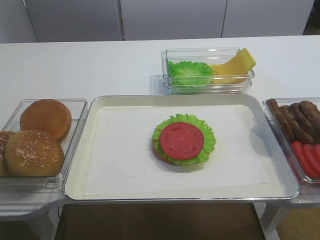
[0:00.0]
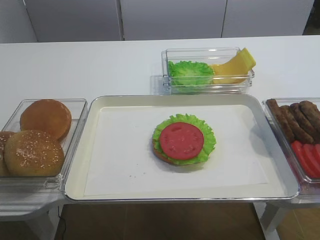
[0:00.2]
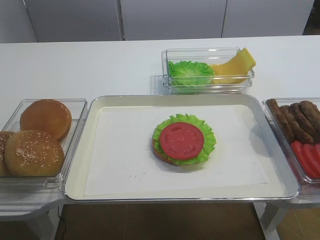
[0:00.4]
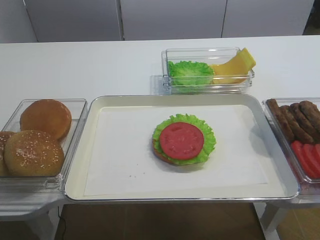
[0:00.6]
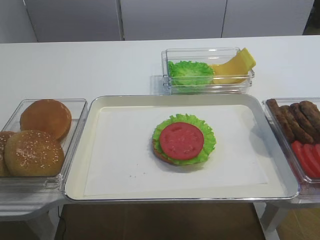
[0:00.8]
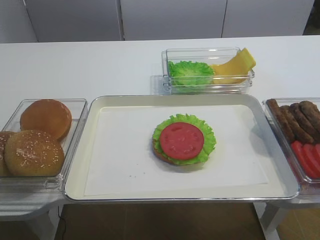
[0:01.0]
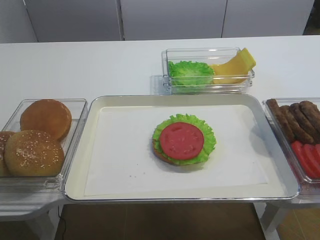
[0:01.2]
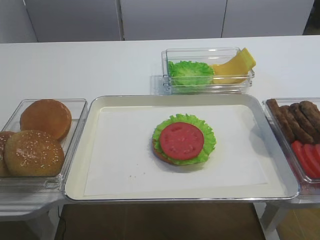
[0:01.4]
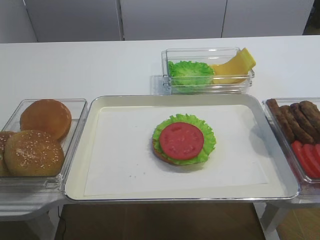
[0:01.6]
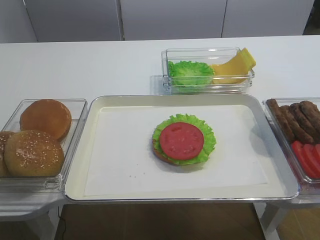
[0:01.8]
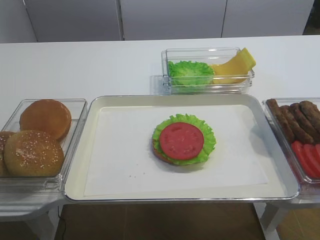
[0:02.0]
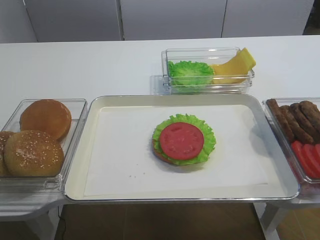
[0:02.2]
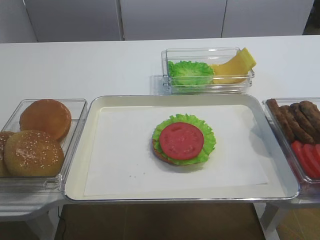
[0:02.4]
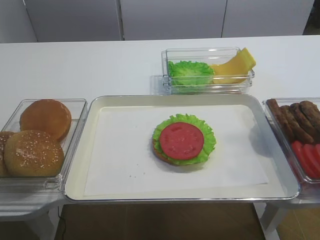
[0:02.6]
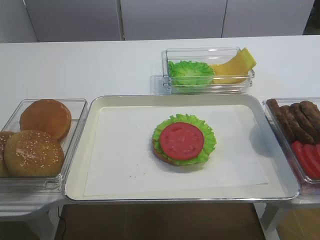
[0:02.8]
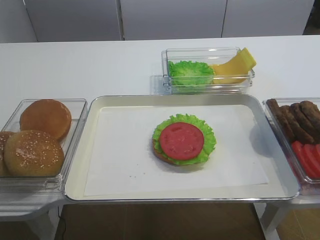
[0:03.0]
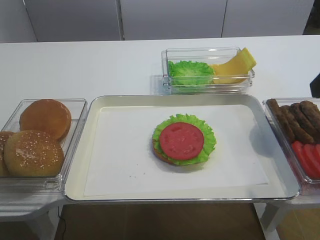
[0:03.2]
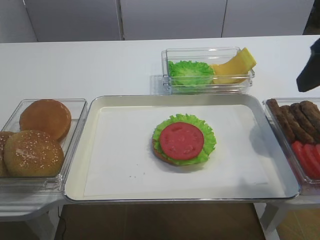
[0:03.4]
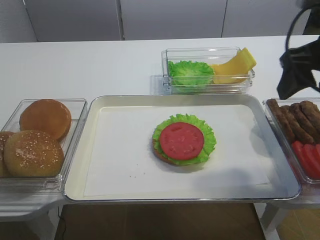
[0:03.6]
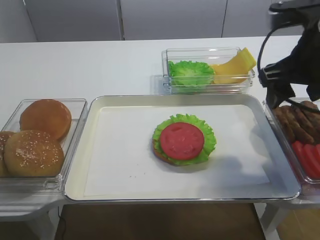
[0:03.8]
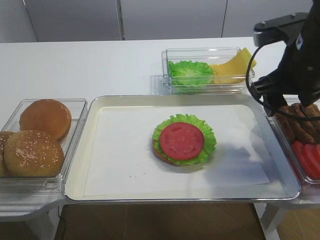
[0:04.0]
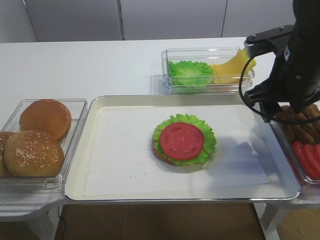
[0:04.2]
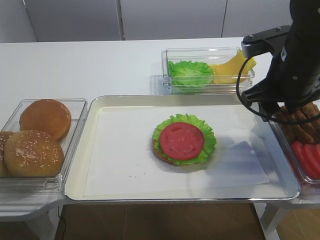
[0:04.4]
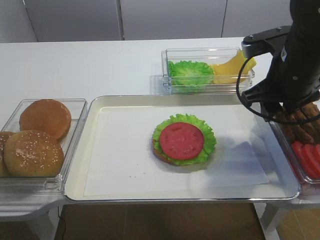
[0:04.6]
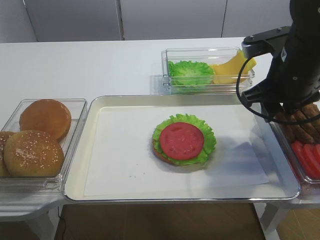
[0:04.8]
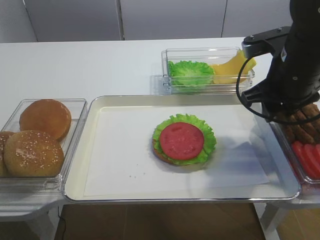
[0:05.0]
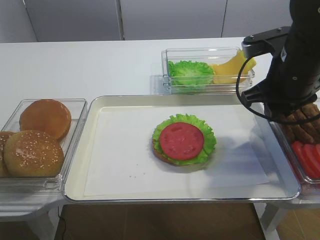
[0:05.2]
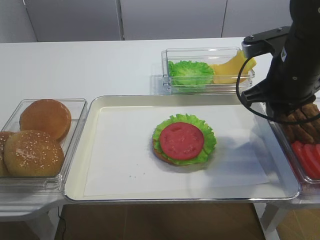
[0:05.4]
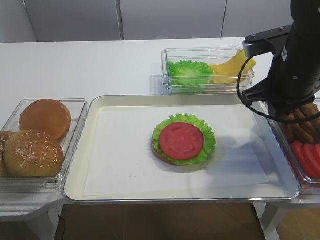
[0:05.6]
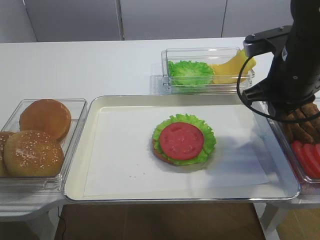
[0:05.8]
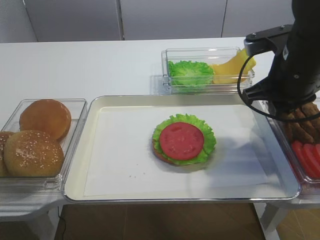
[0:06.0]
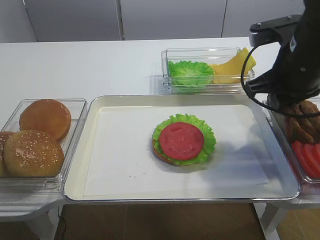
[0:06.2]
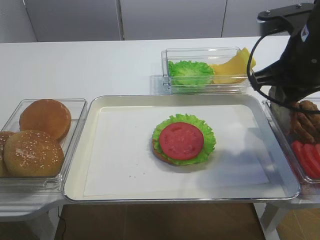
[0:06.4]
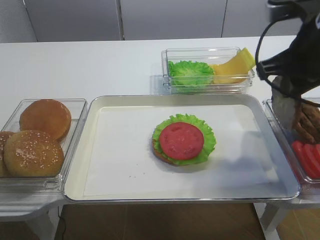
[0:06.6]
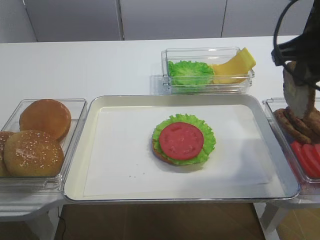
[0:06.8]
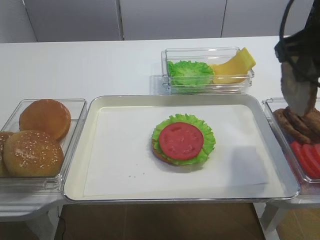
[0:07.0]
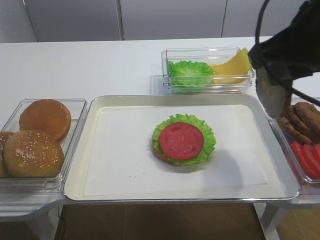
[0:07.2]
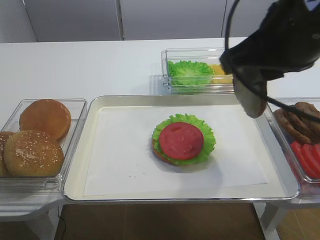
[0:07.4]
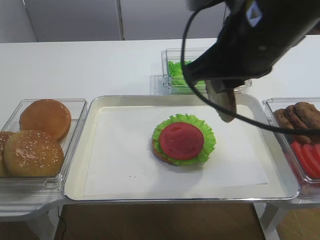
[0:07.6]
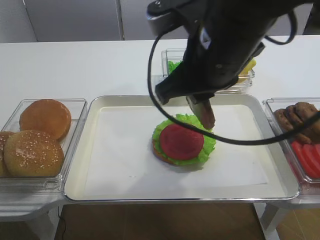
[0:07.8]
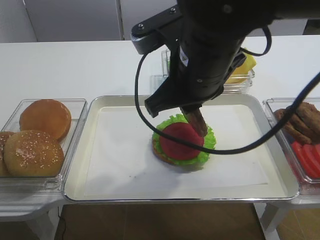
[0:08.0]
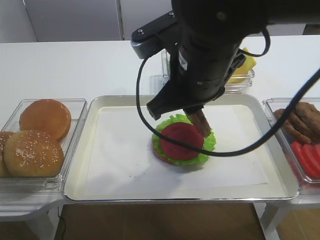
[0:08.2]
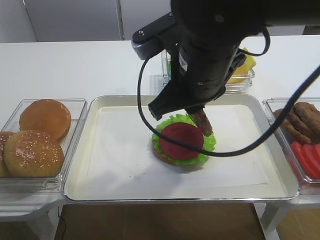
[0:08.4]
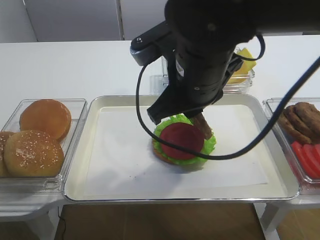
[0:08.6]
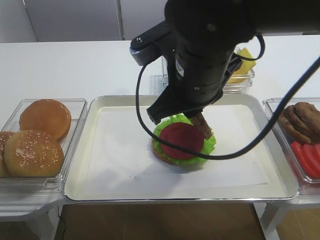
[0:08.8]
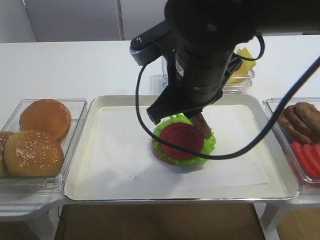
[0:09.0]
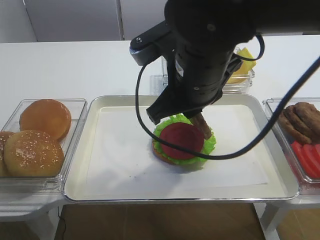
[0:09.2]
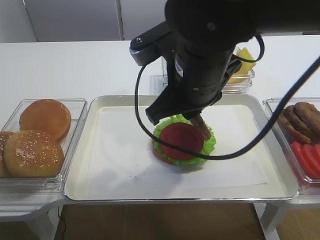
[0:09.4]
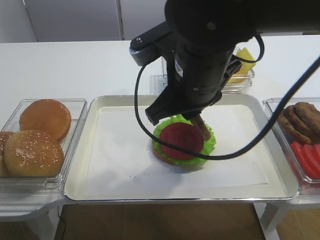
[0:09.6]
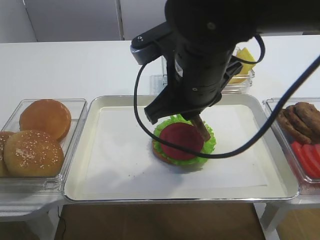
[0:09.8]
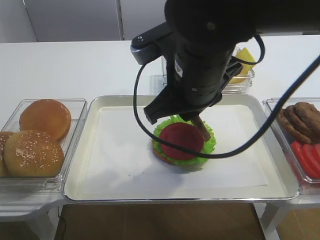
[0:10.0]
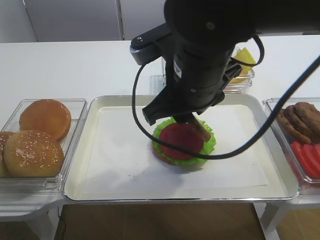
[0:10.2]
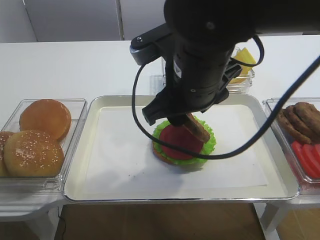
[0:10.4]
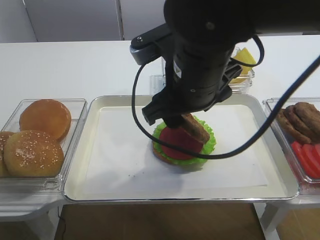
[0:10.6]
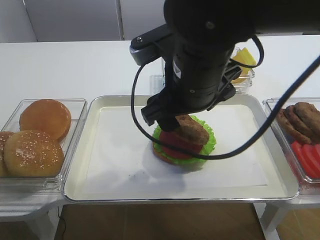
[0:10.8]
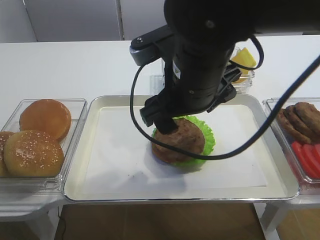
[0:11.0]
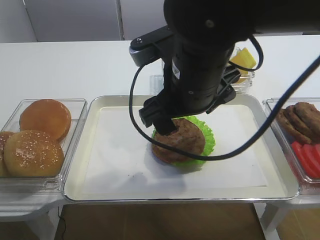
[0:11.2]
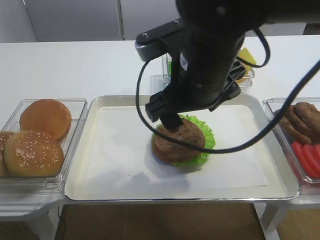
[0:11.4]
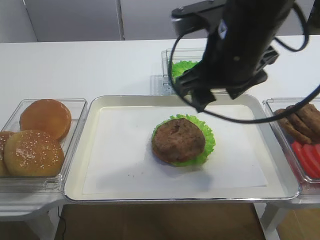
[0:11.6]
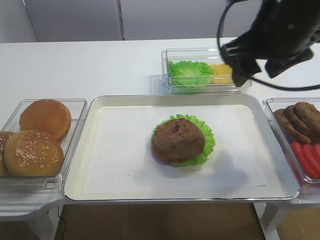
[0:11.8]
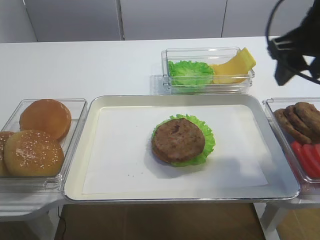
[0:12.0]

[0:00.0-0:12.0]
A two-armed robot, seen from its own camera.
Step, 0.0 to 7.2 s: Pick up the cutlet with the right gripper.
Step, 7.4 to 11.6 s: Place the cutlet on the tomato slice with the right gripper.
1.6 to 3.0 s: The right gripper is displaced forward by roughly 15 cm.
3.0 to 4.4 s: The right gripper shifts some 15 cm forward, downward and to the left.
4.4 to 6.0 s: The right gripper closes.
6.0 to 7.6 s: The right gripper is displaced to the left, upward and backward by approximately 15 cm.
7.6 to 9.0 s: The right gripper moves to the left and downward, approximately 10 cm.
9.0 to 10.4 s: The right gripper opens.
10.4 to 12.0 s: The right gripper shifts some 15 cm to the right, and opens, then closes once more.

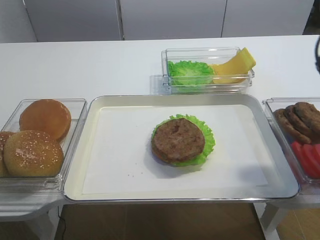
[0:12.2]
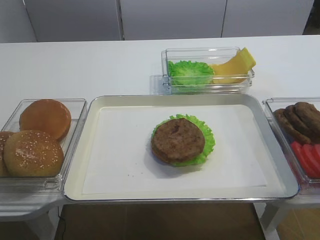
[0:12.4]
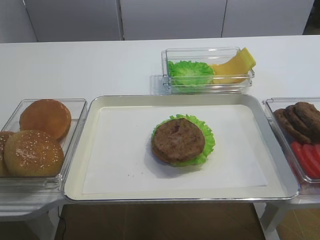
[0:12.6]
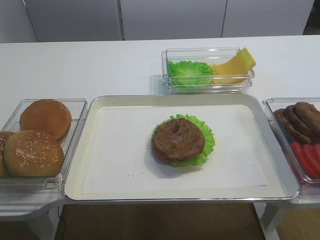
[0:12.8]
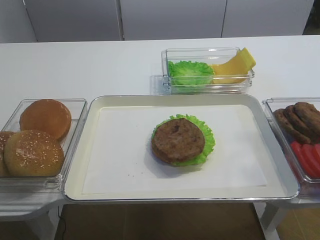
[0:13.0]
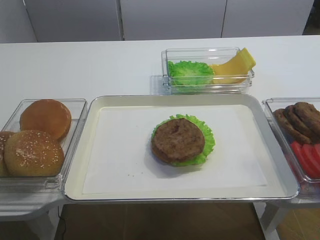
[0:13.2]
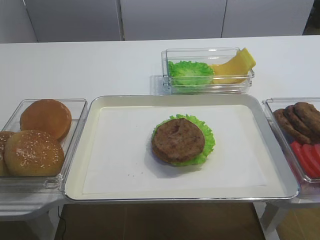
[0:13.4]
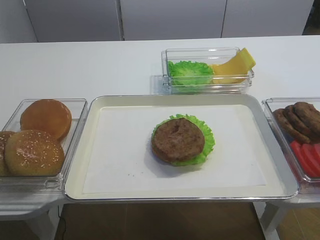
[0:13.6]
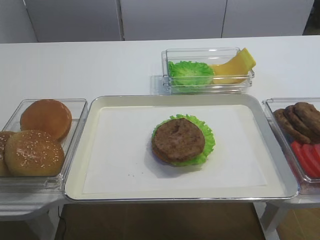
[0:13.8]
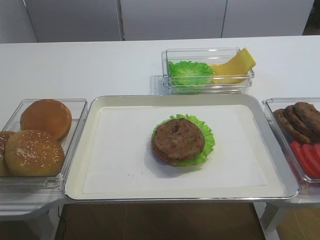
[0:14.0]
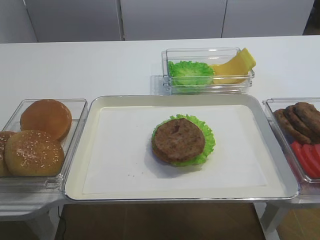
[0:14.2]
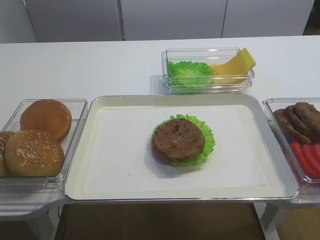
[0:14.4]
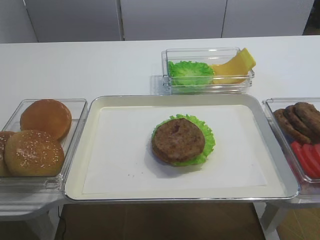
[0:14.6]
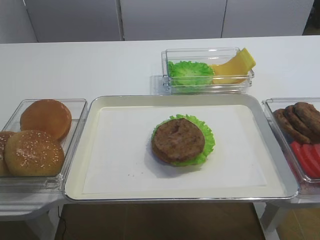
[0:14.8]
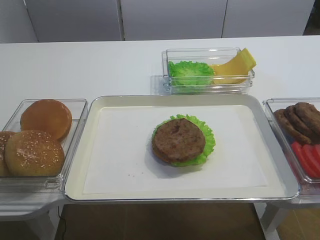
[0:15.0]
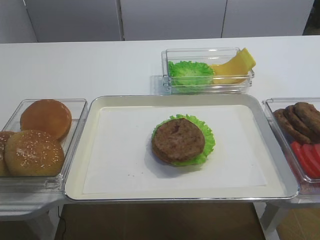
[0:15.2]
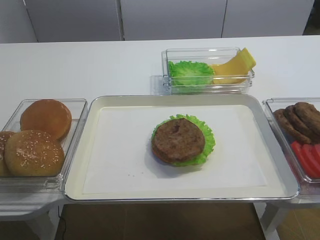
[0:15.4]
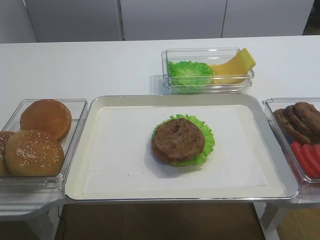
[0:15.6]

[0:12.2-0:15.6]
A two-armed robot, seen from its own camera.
12.2 to 13.8 s: The right gripper shifts some 30 cm backward.

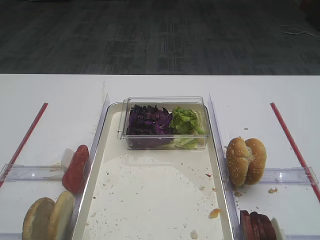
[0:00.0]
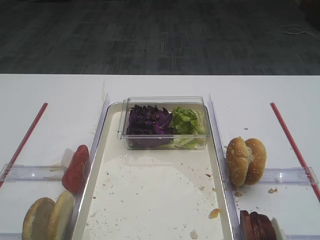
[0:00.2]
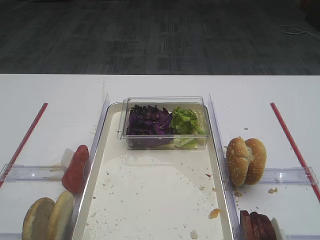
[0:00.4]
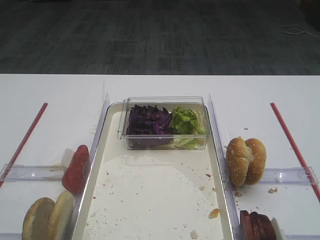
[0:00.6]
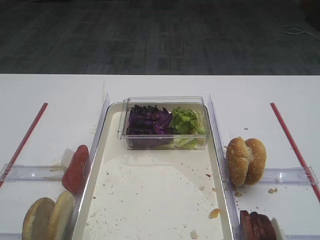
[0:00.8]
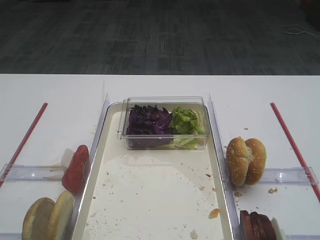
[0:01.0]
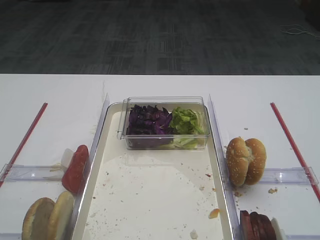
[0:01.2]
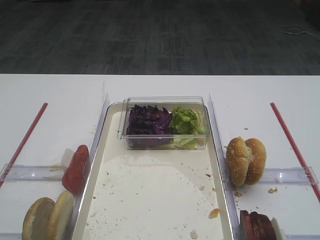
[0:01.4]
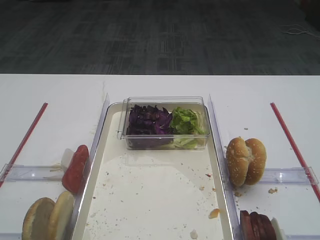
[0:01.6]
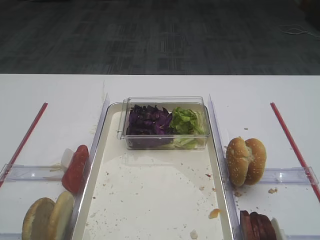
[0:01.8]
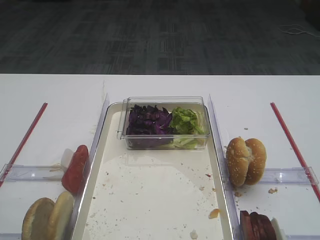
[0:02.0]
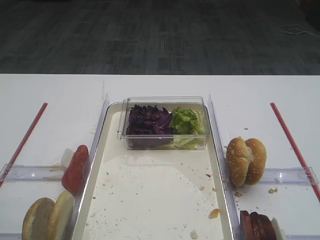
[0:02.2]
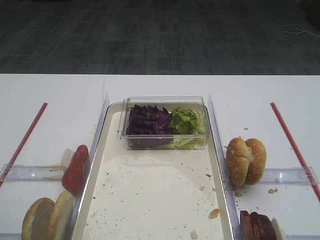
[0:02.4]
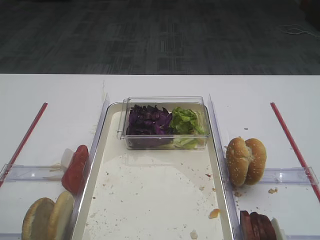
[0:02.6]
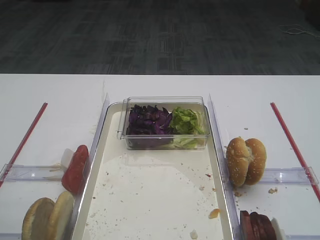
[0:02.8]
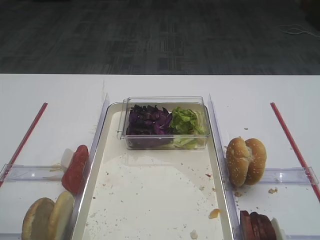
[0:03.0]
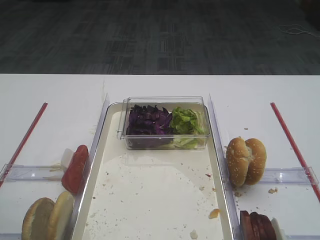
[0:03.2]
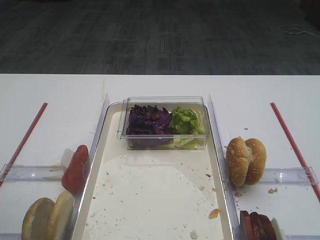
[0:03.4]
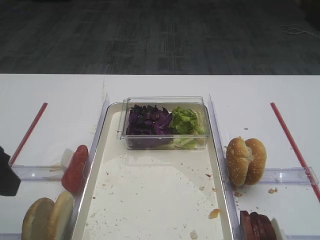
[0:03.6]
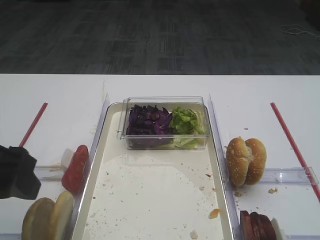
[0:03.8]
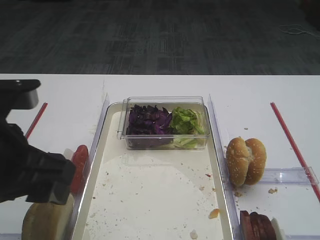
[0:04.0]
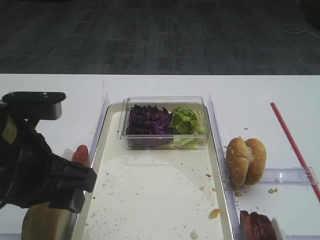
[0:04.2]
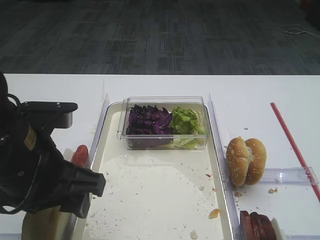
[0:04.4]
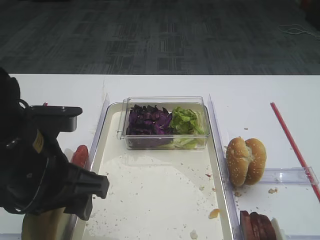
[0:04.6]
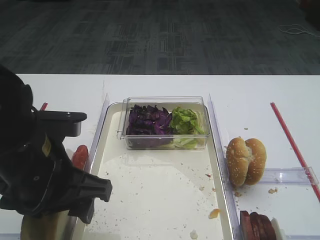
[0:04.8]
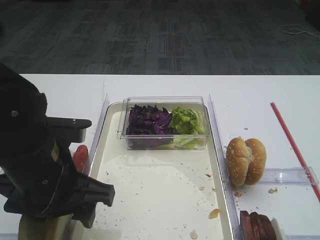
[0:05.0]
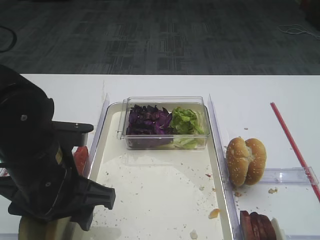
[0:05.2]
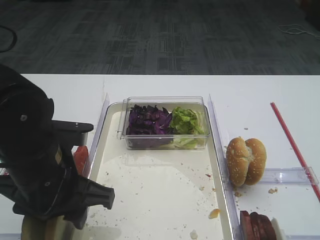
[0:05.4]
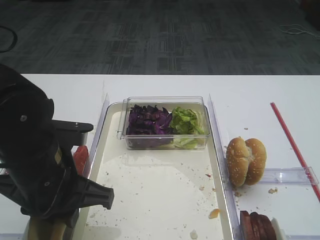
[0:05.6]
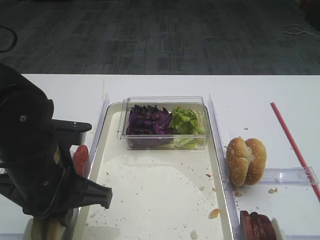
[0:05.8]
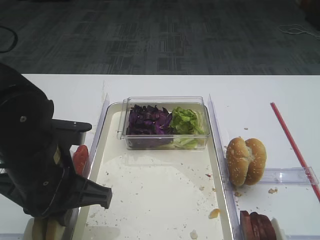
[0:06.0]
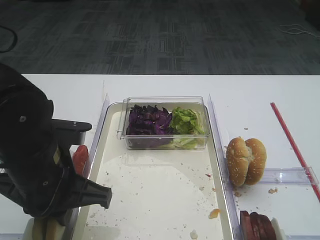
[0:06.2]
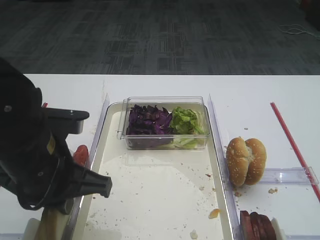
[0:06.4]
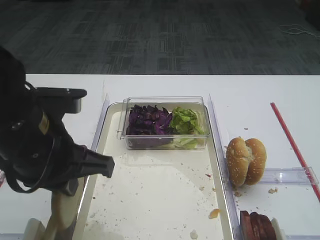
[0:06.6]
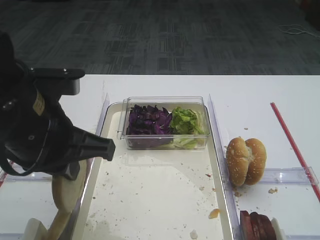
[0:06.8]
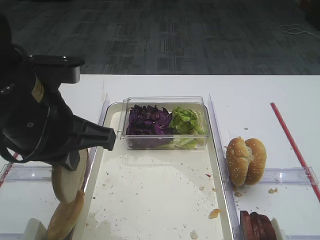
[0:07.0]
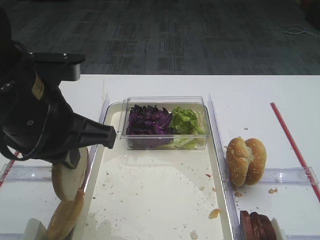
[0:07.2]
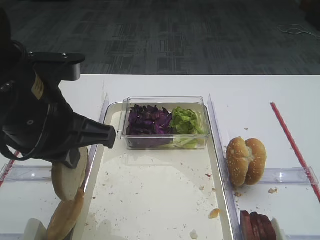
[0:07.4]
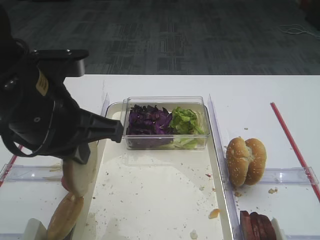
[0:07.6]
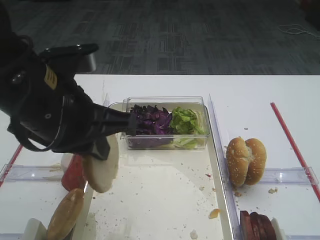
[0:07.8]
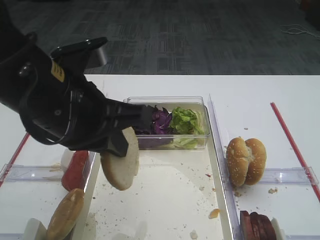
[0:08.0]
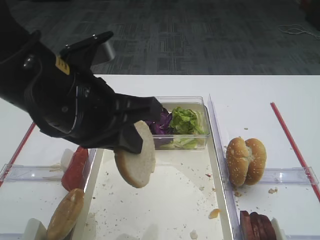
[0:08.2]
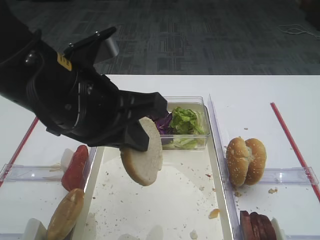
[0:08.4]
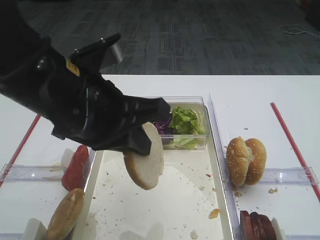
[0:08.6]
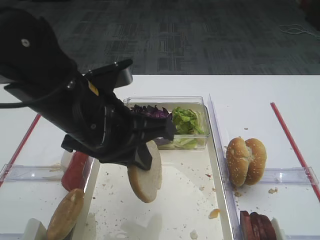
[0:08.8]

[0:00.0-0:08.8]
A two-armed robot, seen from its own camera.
Step, 0.0 to 6.4 s: Pick up the bread slice with the left gripper.
3.0 to 4.4 s: The left gripper moves to the right, roughly 15 cm.
4.4 to 5.8 s: The left gripper closes its fingers.
5.8 to 7.4 s: The left gripper moves upward, about 10 cm.
7.4 to 8.8 s: The left gripper travels to the right by roughly 5 cm.
